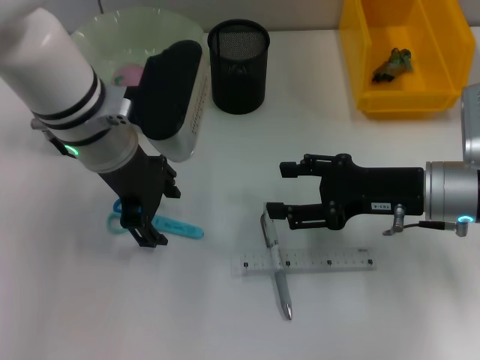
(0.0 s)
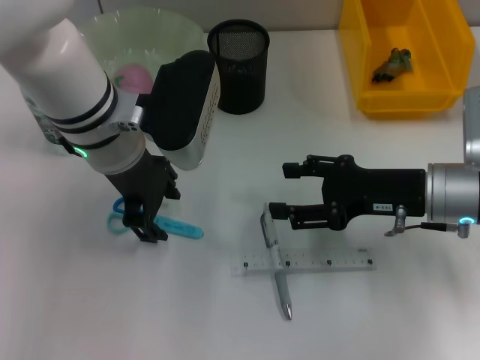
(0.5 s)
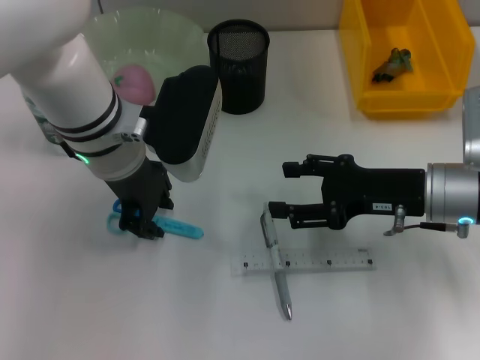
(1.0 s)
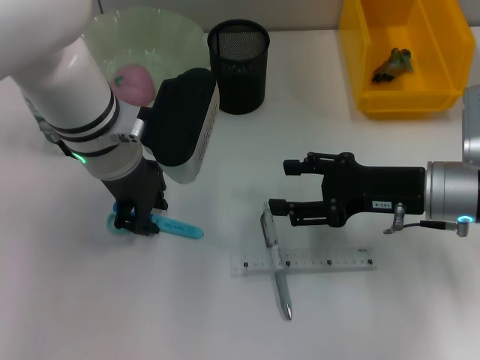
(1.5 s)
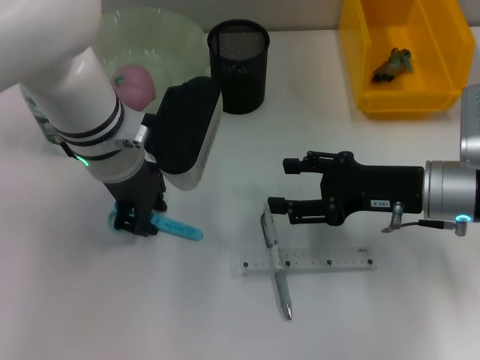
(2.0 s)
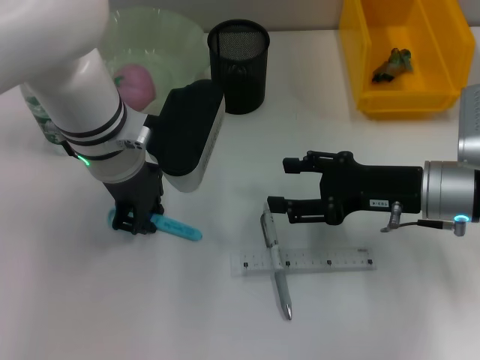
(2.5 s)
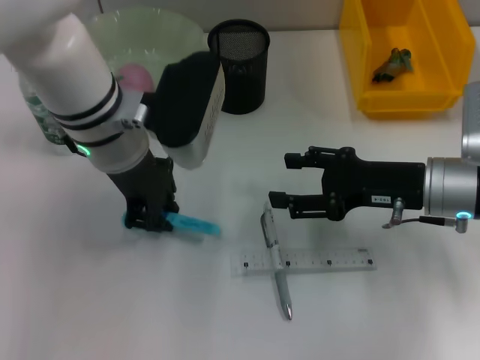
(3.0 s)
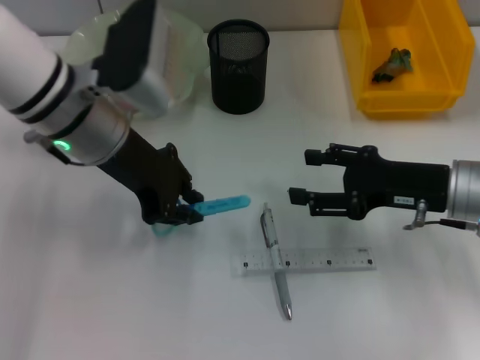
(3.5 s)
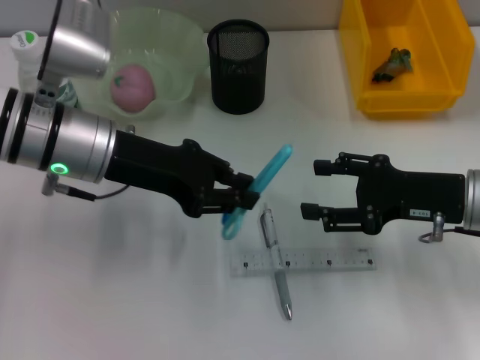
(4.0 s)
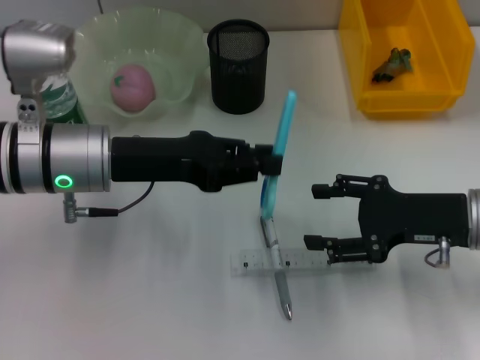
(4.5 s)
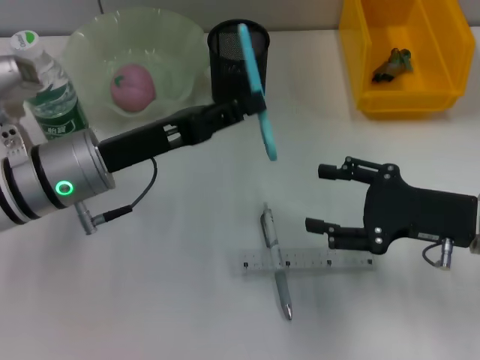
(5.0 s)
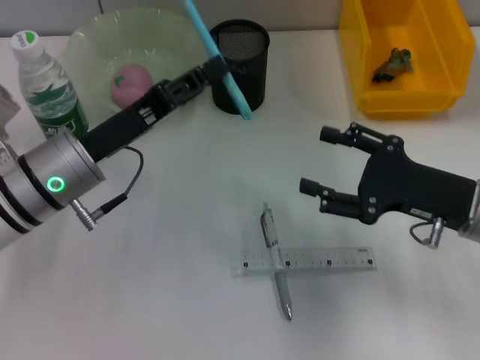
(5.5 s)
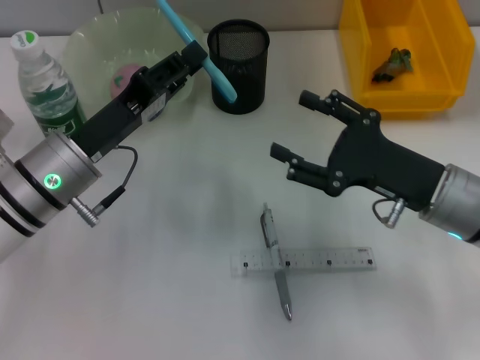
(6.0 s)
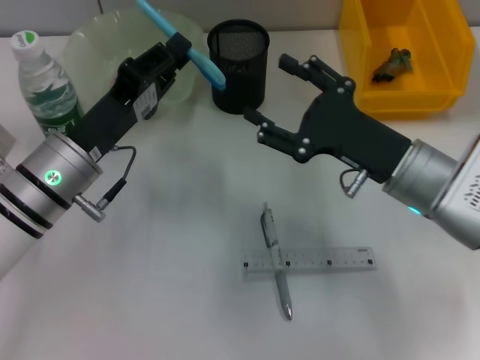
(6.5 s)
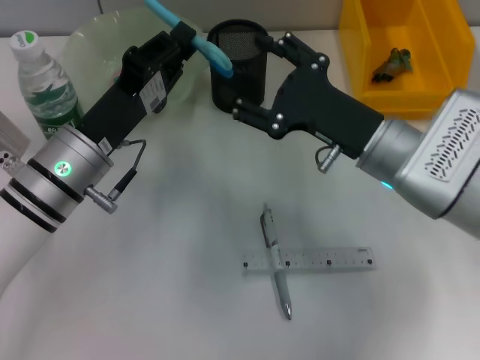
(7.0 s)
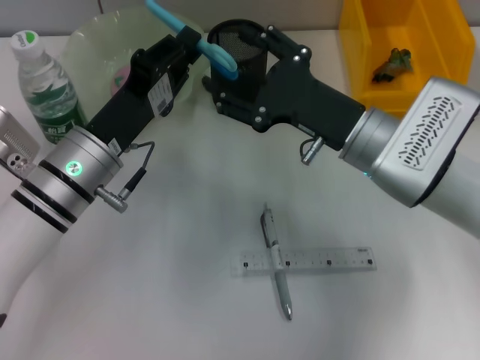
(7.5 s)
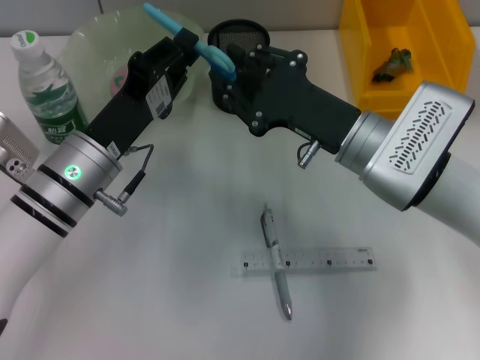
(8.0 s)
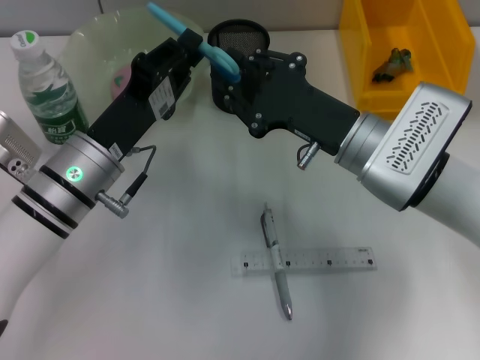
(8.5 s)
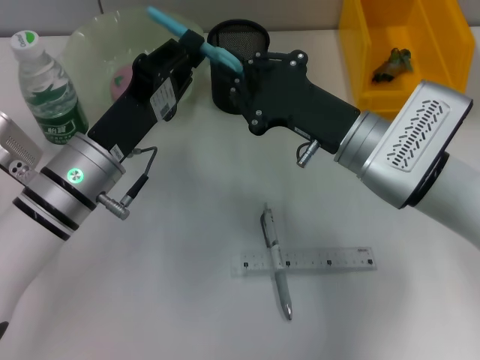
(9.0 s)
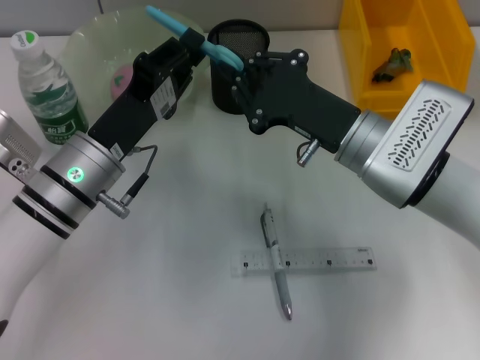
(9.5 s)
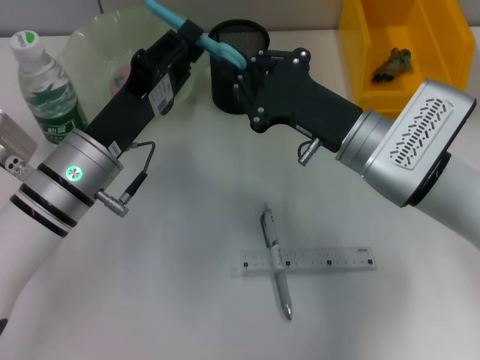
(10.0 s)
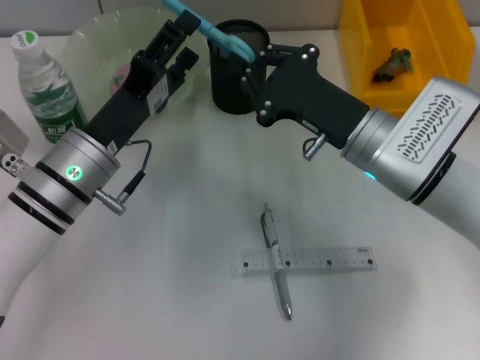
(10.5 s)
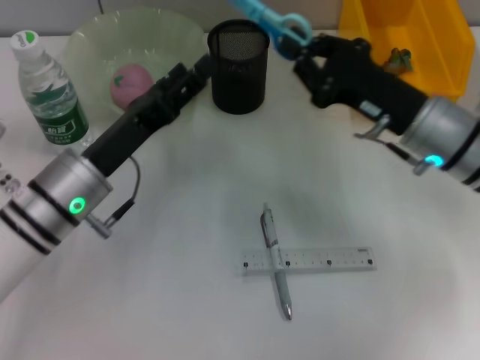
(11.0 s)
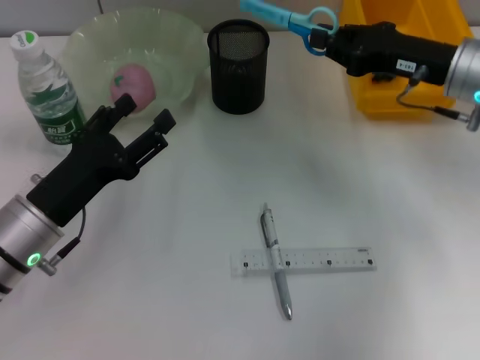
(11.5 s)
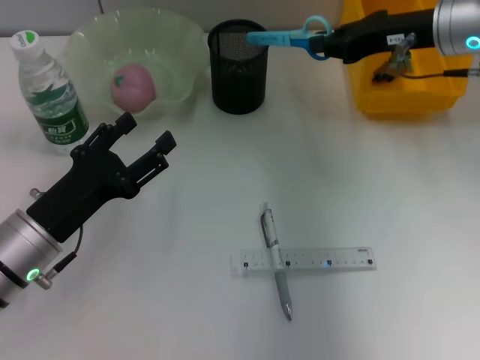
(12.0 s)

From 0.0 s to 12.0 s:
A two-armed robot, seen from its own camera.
Step, from 0.0 s to 2.5 s: Grab the blue scissors with the left hand.
Step, from 3.0 s to 10.5 s: Pass the blue scissors from the left hand to the right hand.
From 0.0 s to 2.0 s: The left gripper closes up.
From 2.0 s to 4.0 s: The left gripper shifts roughly 5 cm to the left.
From 4.0 s to 6.0 s: The left gripper heads downward, covering roughly 5 cm.
From 6.0 s to 8.0 s: The right gripper goes approximately 10 cm to the left.
From 8.0 s to 10.0 s: The right gripper closes up.
From 10.0 s to 12.0 s: The right gripper is displaced forward, upward and to the right by roughly 15 cm. Meanwhile the left gripper travels to the left and backward by about 10 cm, and opens up.

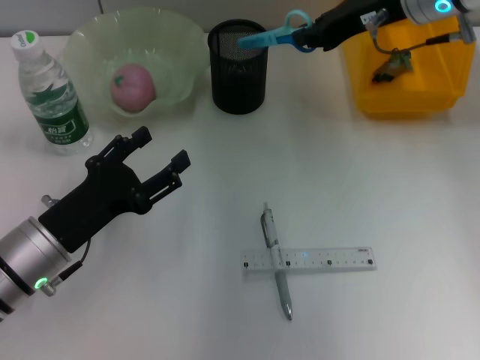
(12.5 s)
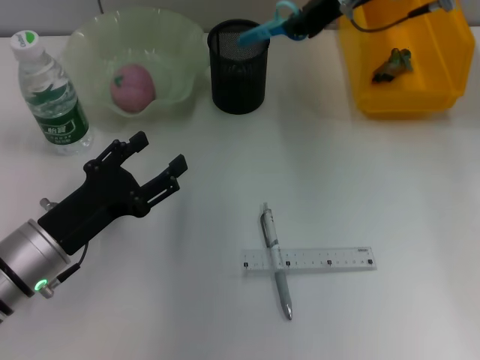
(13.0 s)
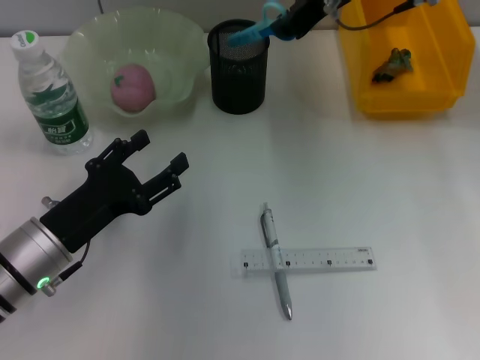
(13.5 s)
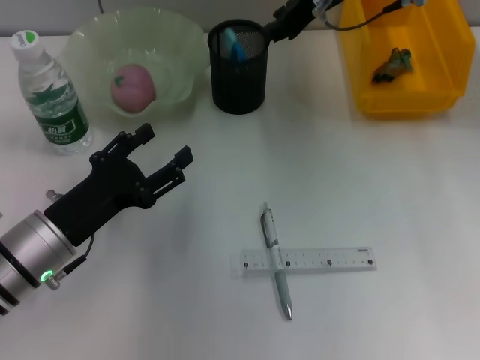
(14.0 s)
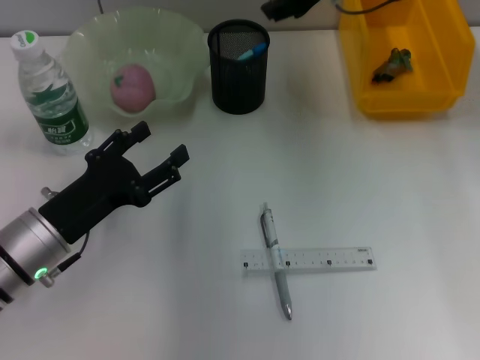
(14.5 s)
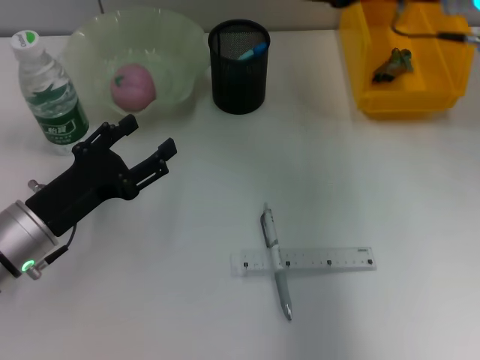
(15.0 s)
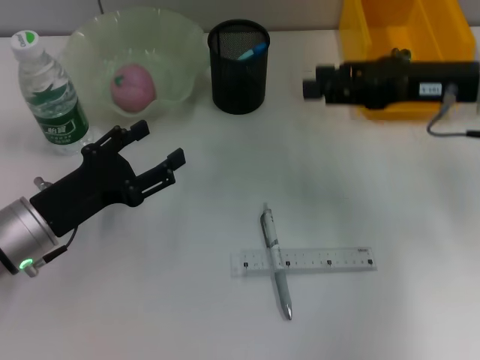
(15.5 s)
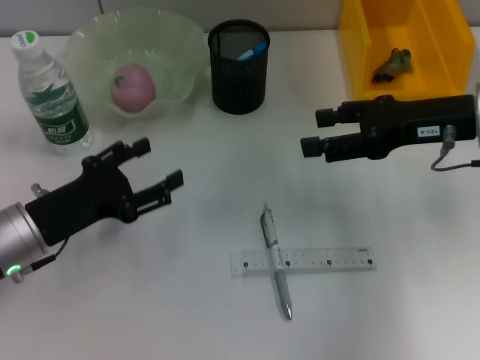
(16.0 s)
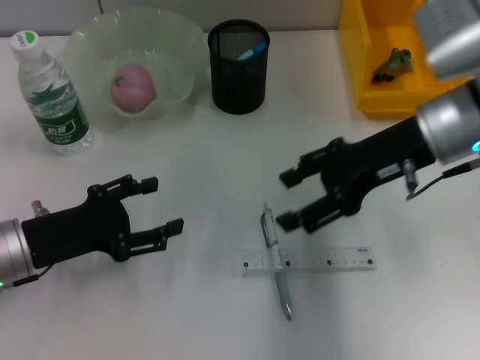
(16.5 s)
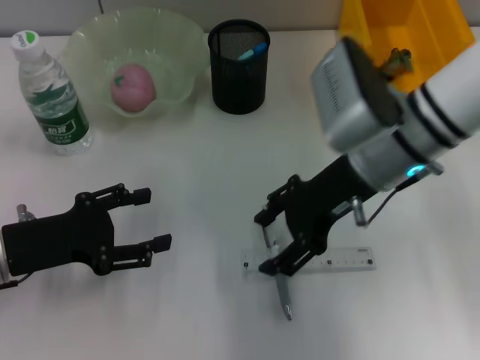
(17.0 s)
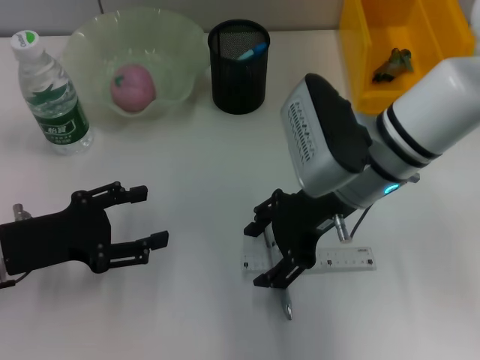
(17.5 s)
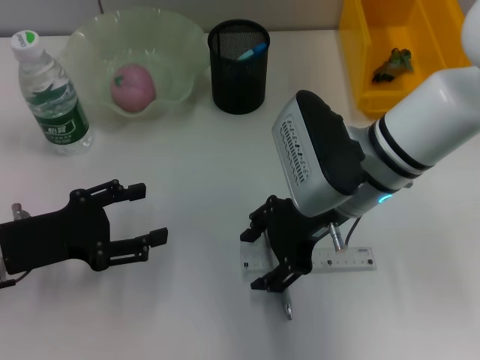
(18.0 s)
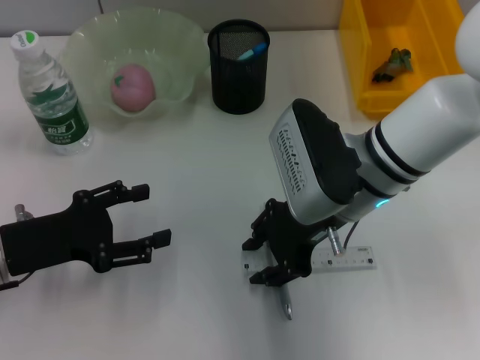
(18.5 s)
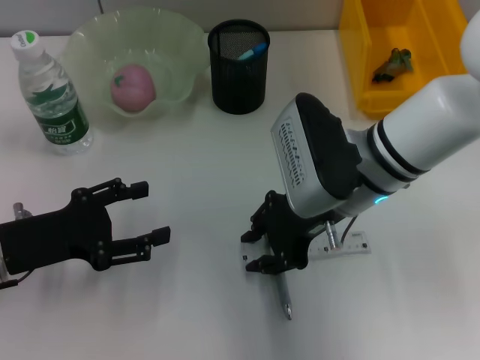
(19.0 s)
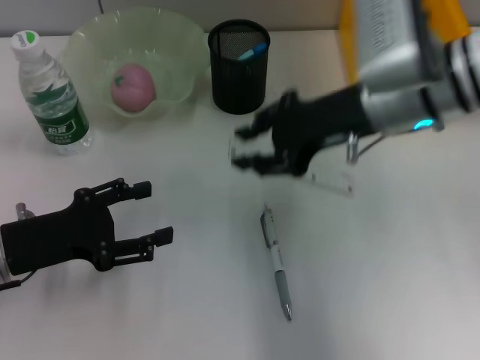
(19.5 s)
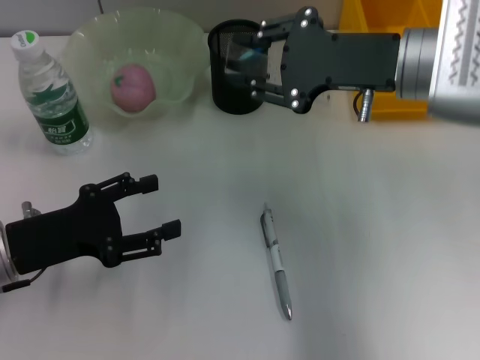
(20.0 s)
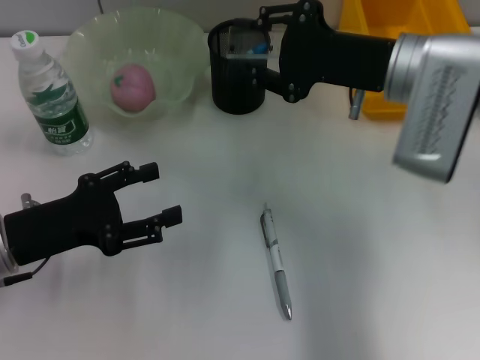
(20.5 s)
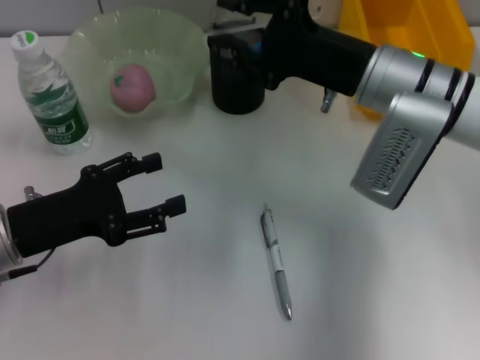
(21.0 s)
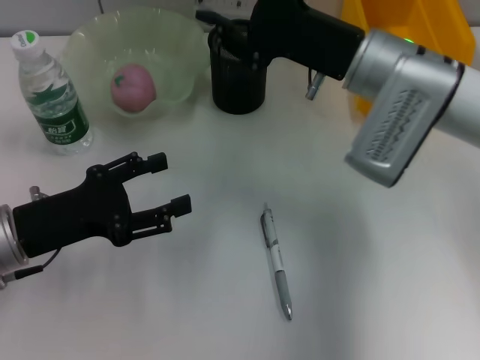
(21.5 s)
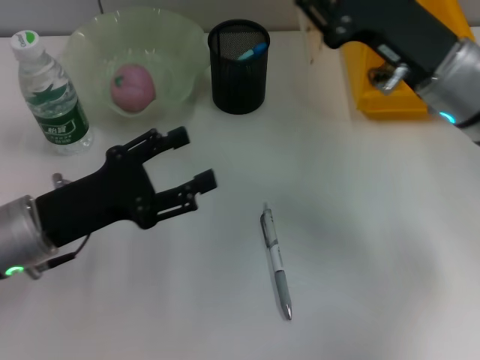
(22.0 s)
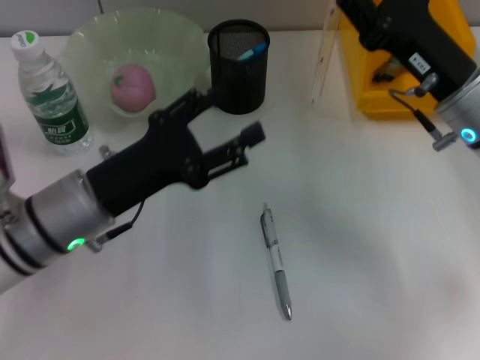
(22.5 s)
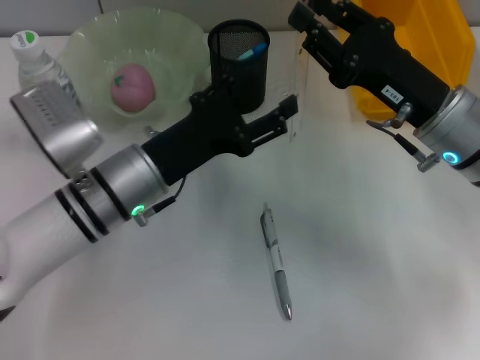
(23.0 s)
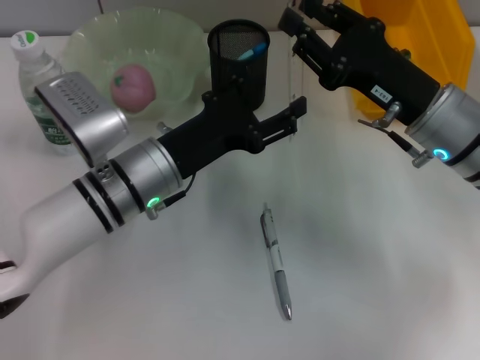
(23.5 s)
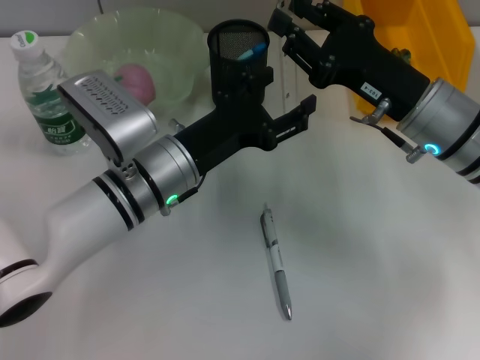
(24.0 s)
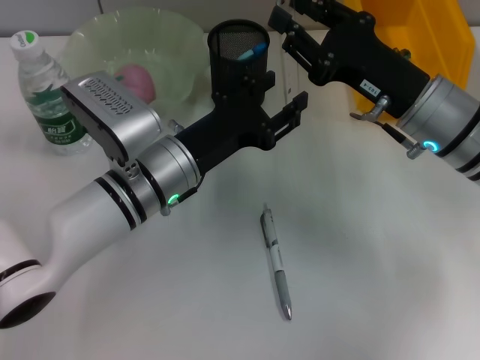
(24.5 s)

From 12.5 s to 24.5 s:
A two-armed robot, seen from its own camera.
Step, from 14.5 s to 19.0 s: Grab the ruler with the right hand.
From 12.5 s to 14.5 s: The right gripper moves approximately 5 cm, and opens.
From 14.5 s to 16.5 s: The right gripper is displaced backward and downward by some 15 cm, and opens its fingers.
From 16.5 s to 18.5 s: The right gripper travels to the left by some 10 cm.
From 18.5 s to 20.5 s: The right gripper shifts about 5 cm to the right.
From 20.5 s to 22.5 s: The right gripper heads downward, covering about 5 cm. The left gripper is displaced to the right by approximately 10 cm.
From 22.5 s to 24.5 s: The left gripper heads to the right, covering about 10 cm.

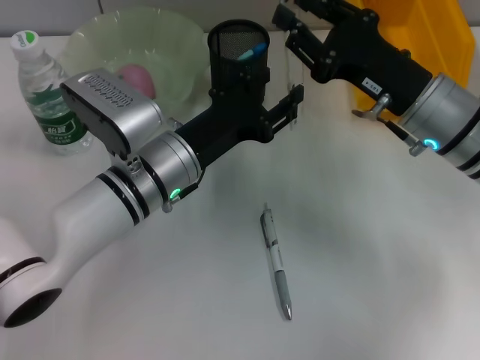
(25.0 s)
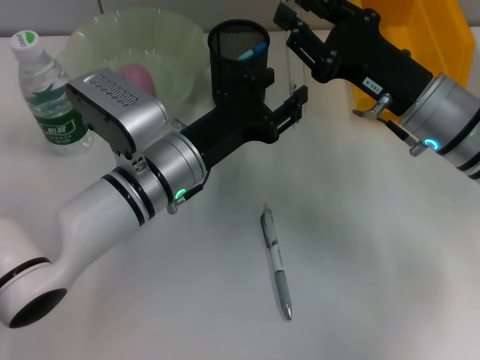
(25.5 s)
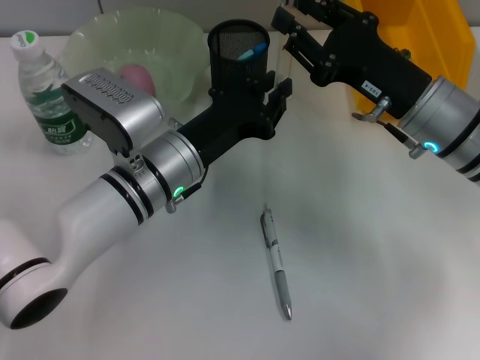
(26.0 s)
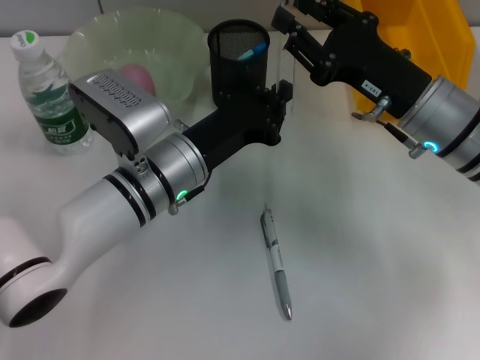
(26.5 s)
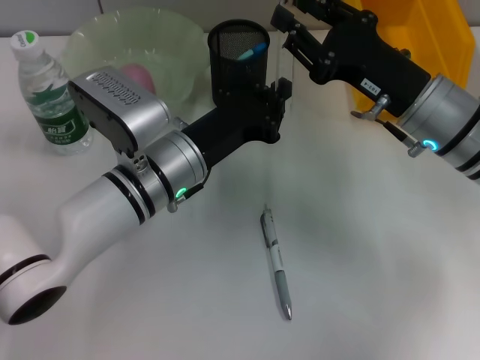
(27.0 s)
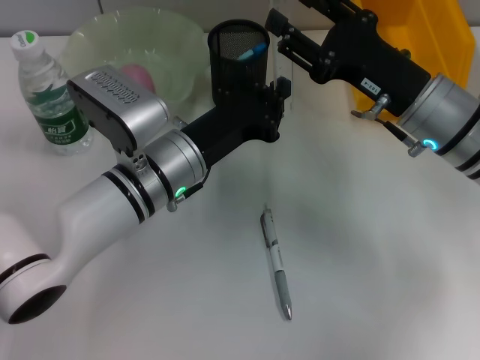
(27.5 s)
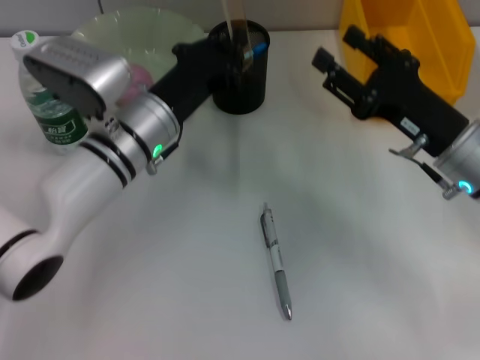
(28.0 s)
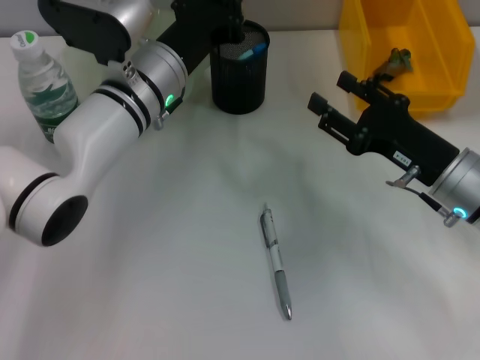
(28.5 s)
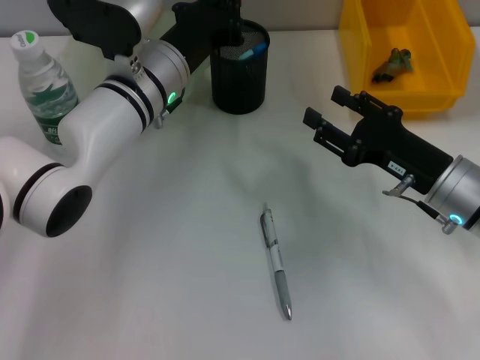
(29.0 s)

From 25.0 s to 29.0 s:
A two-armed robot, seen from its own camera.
Step, from 25.0 s to 27.5 s: Pass the ruler from the right hand to the left hand.
From 25.0 s to 27.0 s: The left gripper closes.
From 27.0 s to 29.0 s: The right gripper shifts roughly 5 cm downward, while the left gripper travels forward by some 10 cm.
